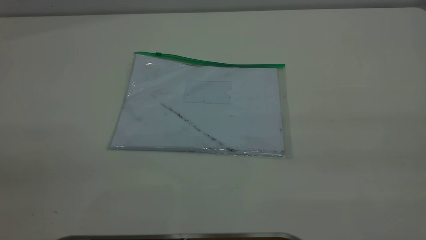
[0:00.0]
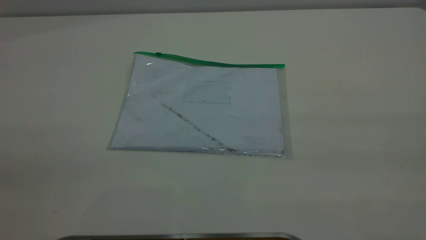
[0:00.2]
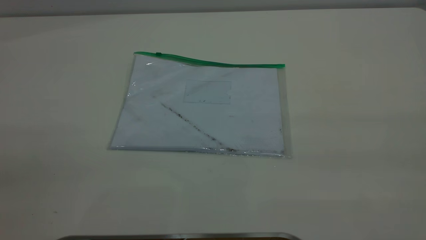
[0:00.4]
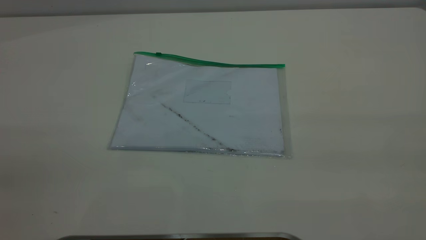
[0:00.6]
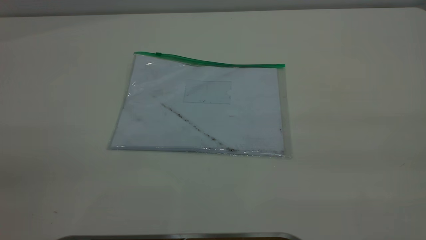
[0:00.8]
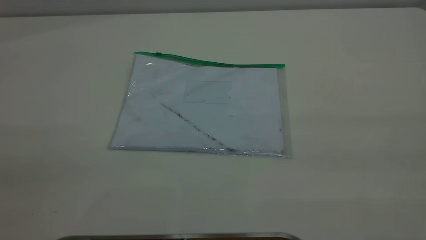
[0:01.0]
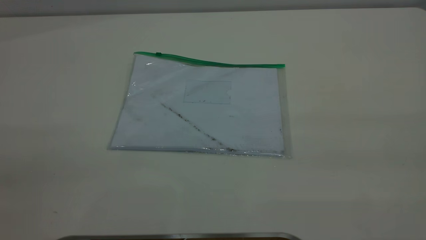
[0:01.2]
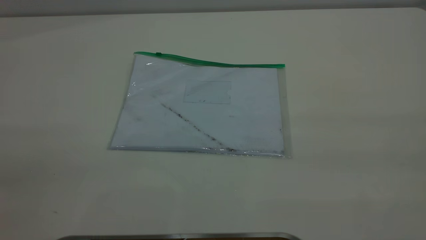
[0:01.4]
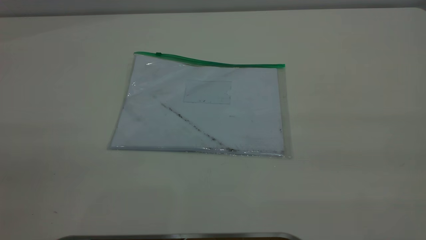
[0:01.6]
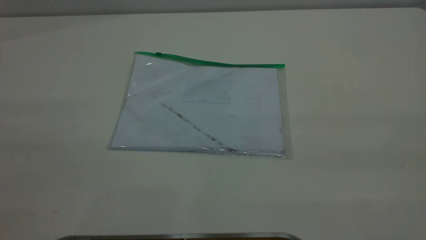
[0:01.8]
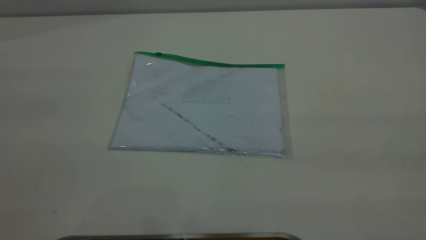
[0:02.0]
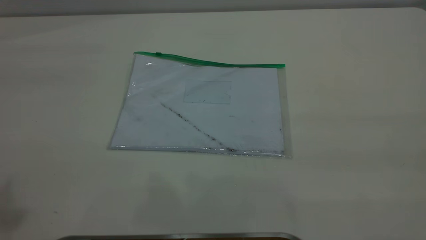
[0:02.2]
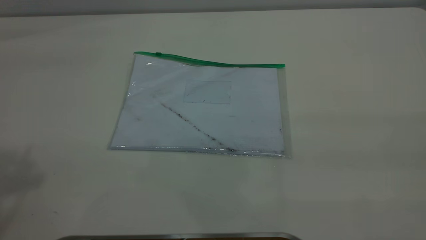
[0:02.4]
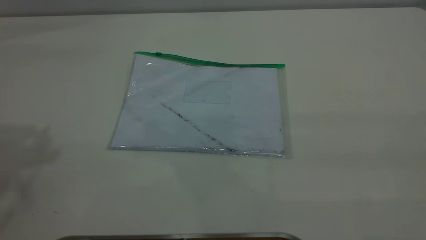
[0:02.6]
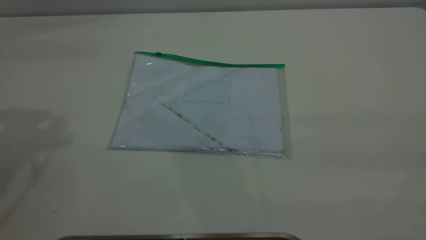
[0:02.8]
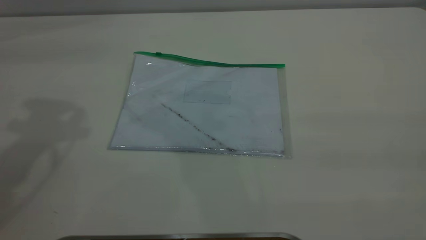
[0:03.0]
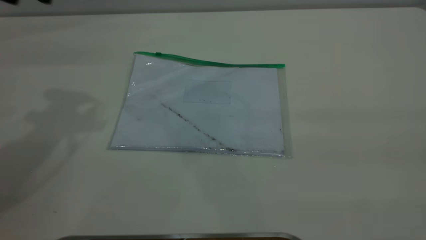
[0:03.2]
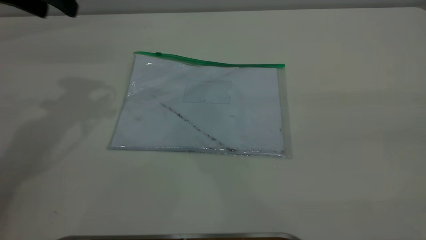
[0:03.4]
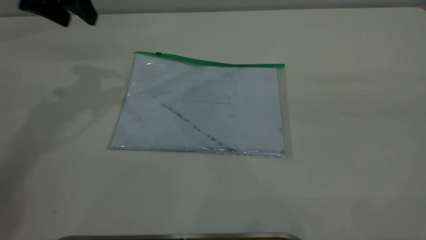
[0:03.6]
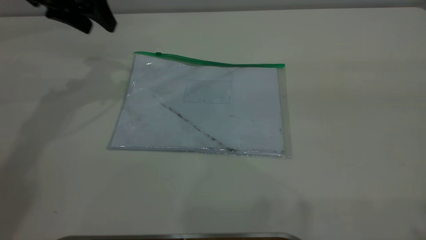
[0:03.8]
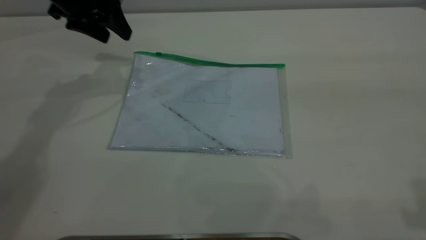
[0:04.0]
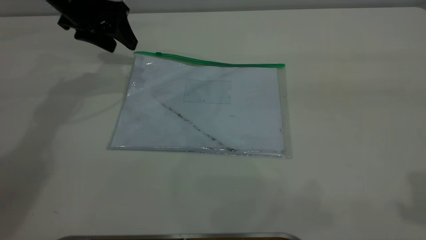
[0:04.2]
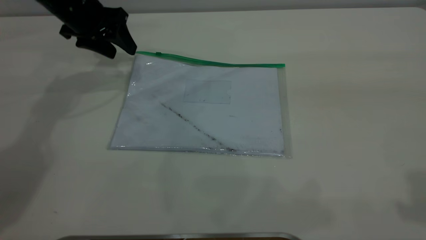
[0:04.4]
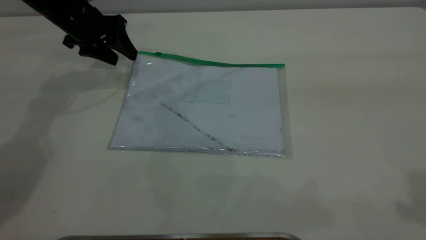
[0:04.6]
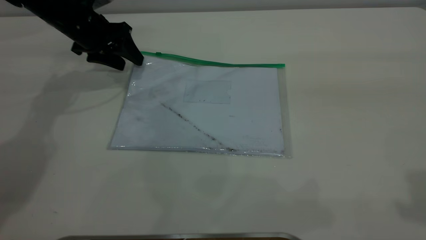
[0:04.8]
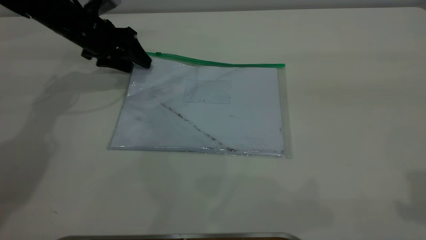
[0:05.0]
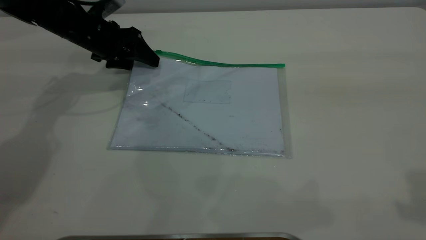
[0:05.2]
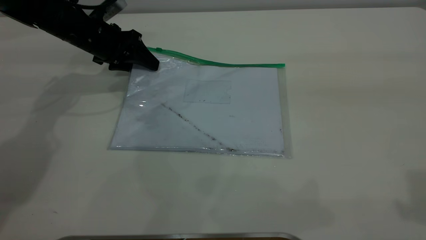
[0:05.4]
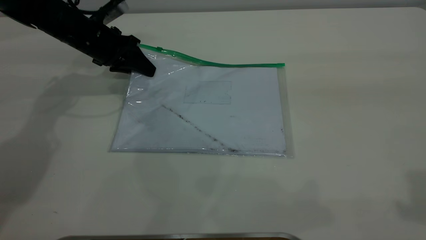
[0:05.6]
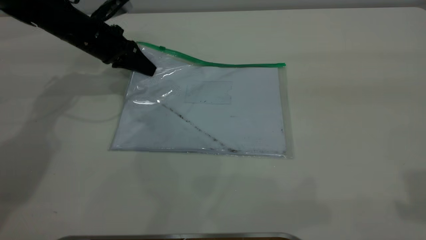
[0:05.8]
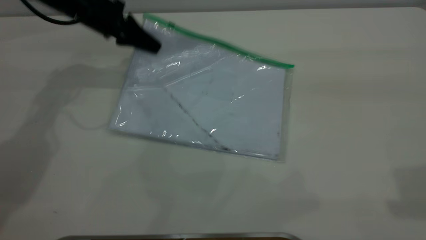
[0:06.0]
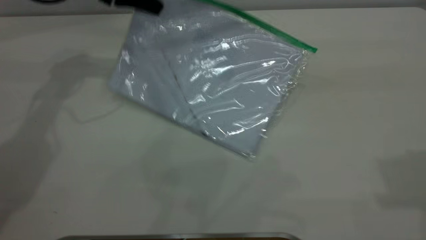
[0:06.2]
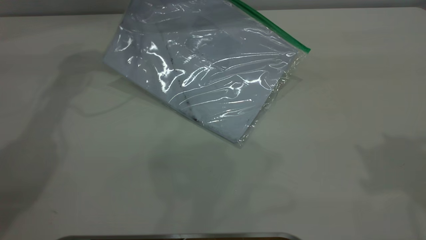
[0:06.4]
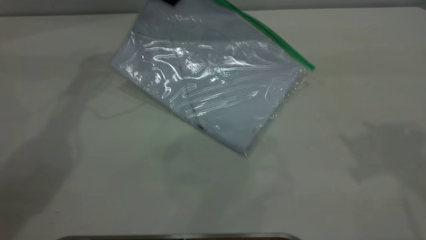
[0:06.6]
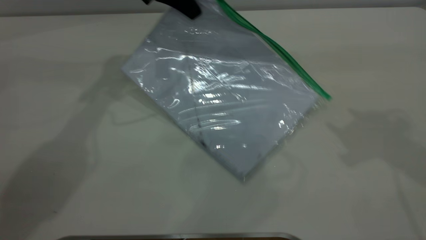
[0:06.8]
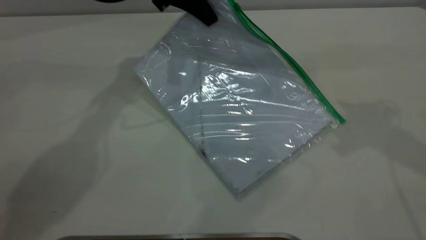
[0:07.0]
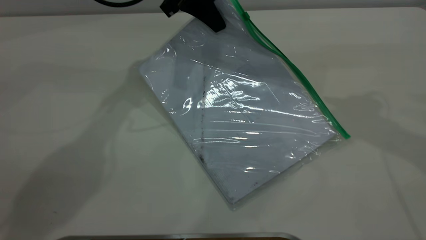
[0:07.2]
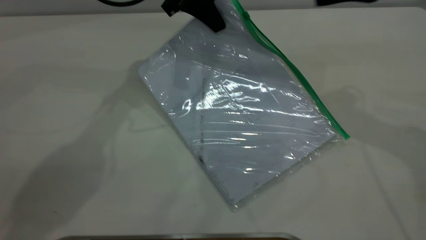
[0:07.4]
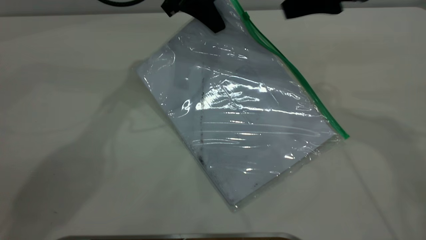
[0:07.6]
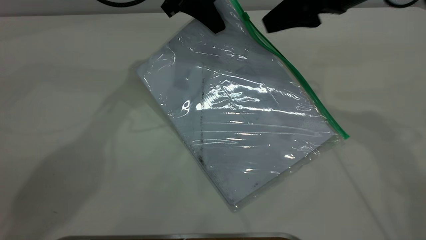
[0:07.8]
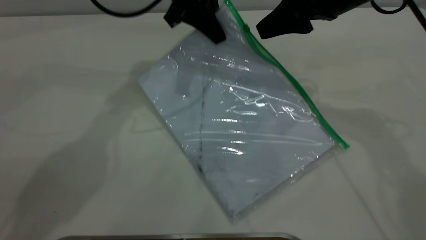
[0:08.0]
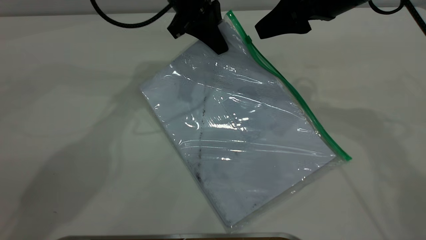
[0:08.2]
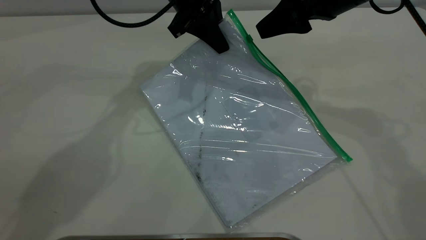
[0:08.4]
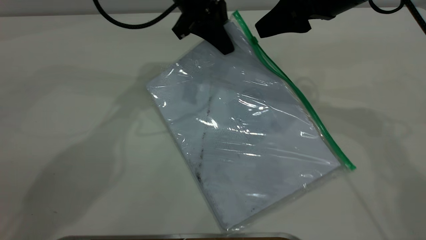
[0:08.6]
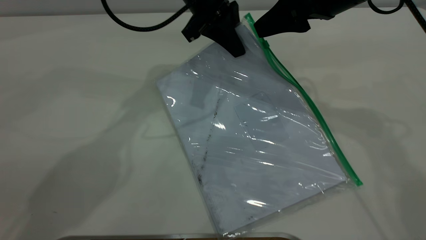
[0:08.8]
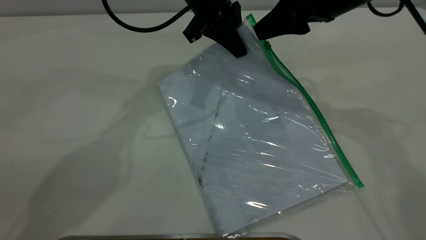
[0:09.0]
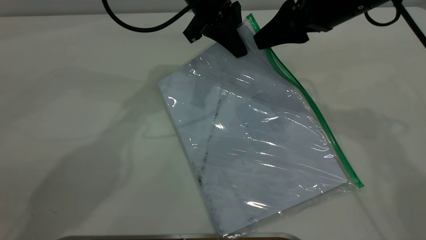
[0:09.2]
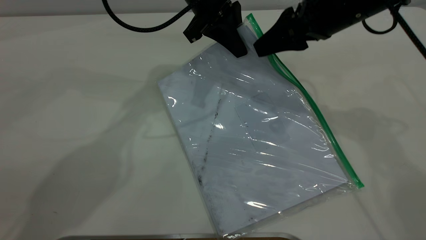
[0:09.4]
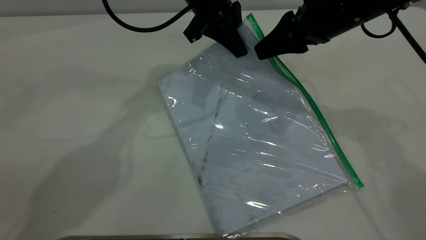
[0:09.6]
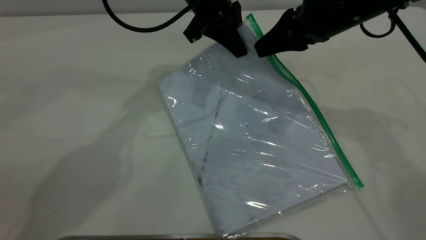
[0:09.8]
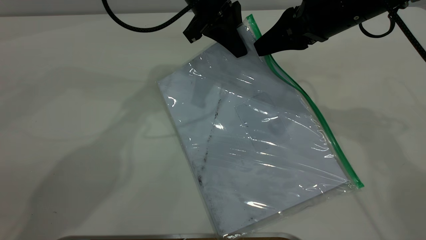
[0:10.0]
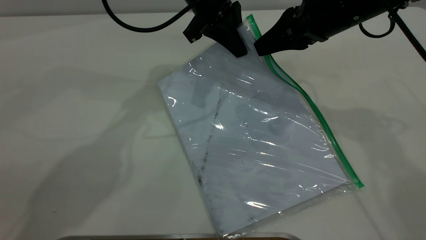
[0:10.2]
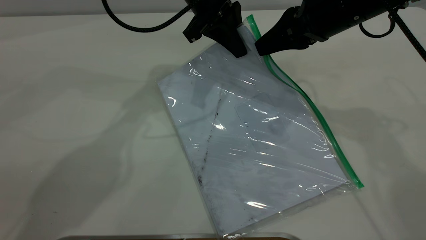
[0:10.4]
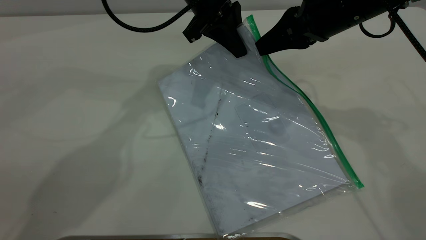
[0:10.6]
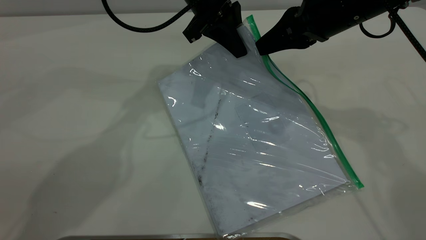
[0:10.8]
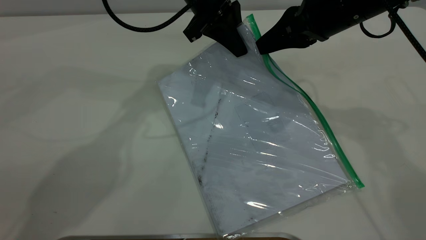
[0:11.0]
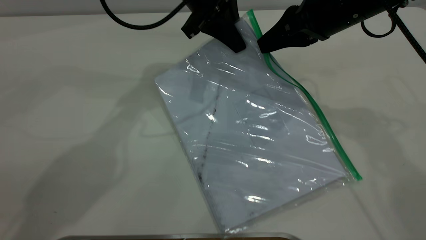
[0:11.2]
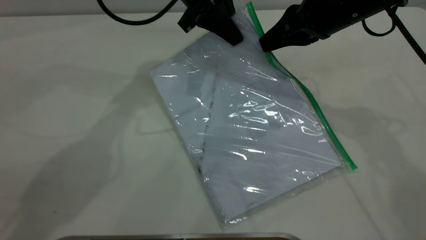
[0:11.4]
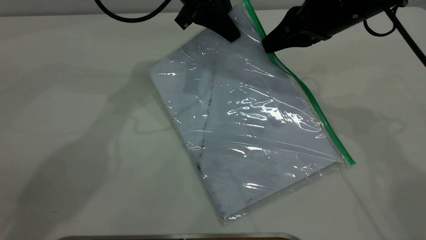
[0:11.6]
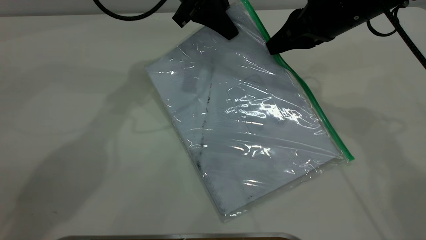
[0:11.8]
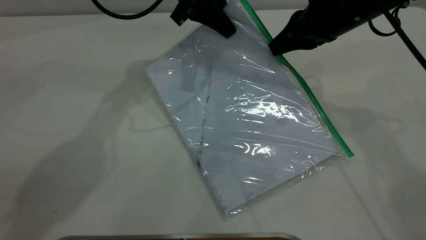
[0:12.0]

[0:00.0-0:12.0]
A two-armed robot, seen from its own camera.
Step, 0:00.0 to 0:05.8: Pick up the transparent plastic bag with the left gripper.
0:00.0 to 0:01.6: Both grippers stay put.
0:03.0 to 0:04.4: The left gripper moves downward and forward, roughly 25 cm.
0:04.4 to 0:06.0: The left gripper closes.
0:06.0 to 0:07.6: The left gripper moves to the right and upward, roughly 15 cm, while the right gripper travels forward, downward and to the left by approximately 25 cm.
0:07.6 to 0:09.0: The left gripper changes place by approximately 5 cm.
0:09.0 to 0:10.4: The right gripper closes.
0:10.4 to 0:12.0: The grippers make only small movements.

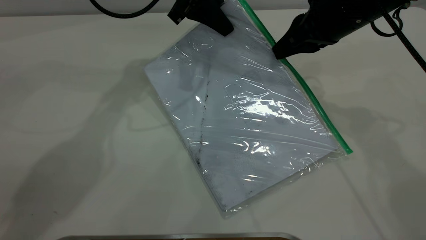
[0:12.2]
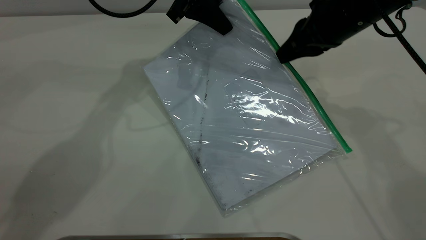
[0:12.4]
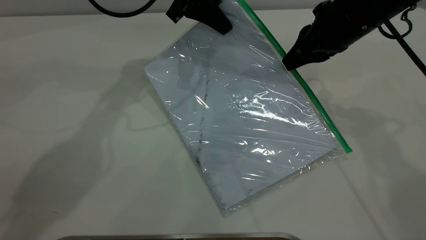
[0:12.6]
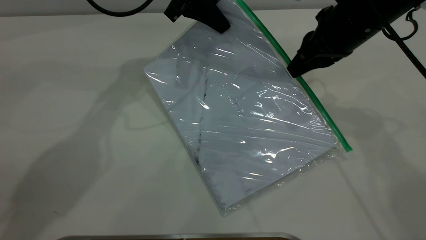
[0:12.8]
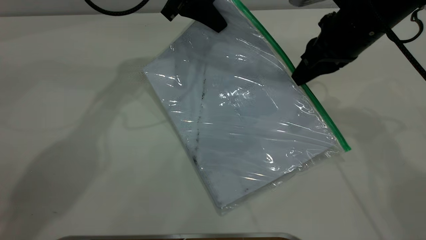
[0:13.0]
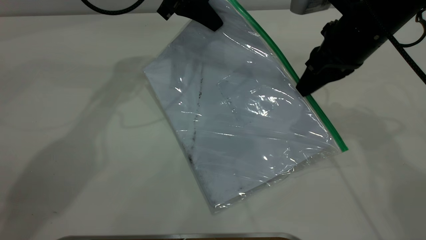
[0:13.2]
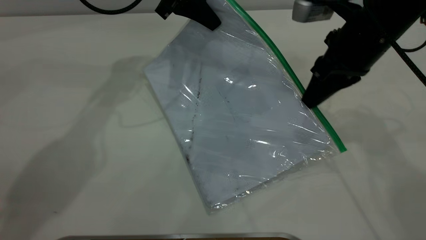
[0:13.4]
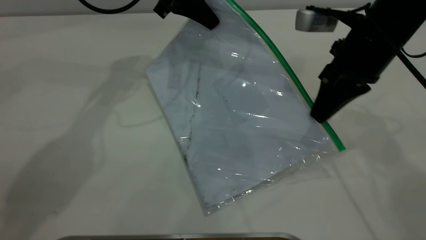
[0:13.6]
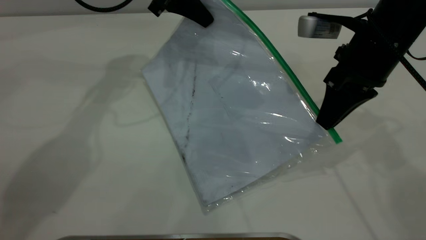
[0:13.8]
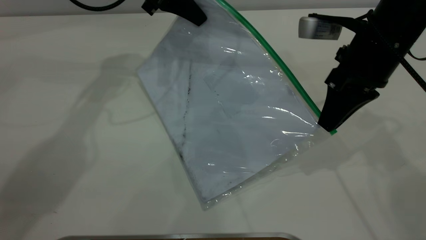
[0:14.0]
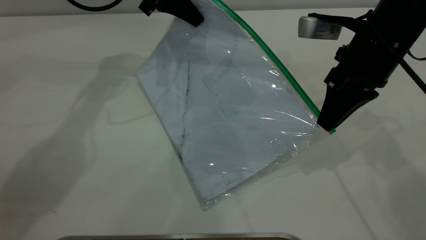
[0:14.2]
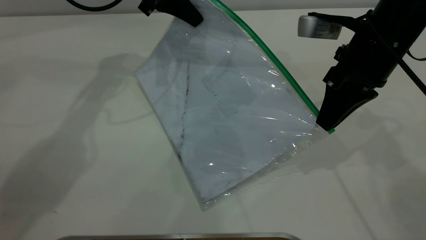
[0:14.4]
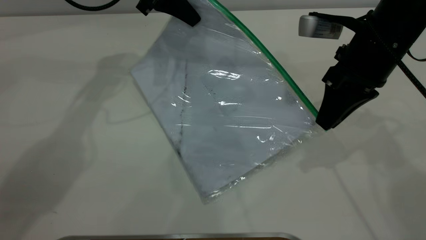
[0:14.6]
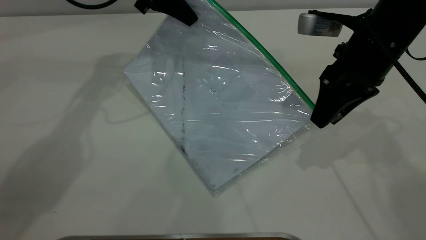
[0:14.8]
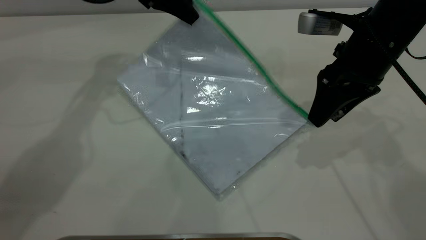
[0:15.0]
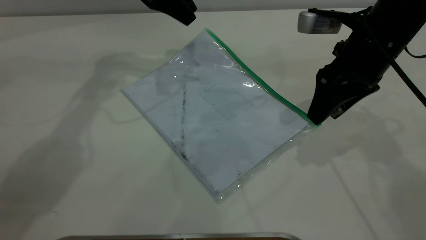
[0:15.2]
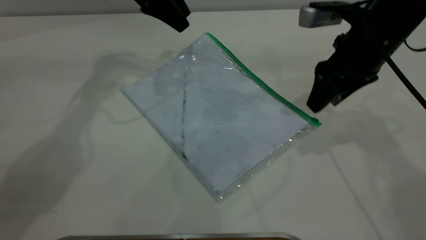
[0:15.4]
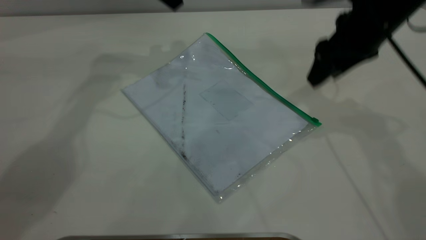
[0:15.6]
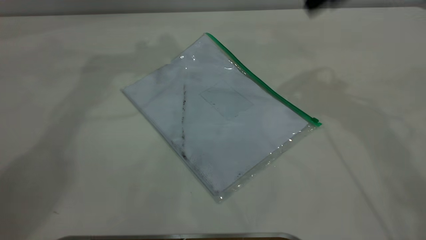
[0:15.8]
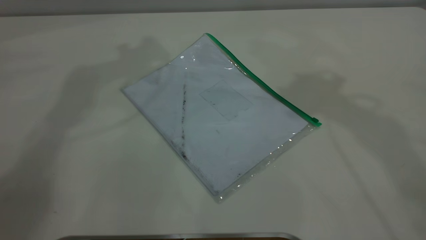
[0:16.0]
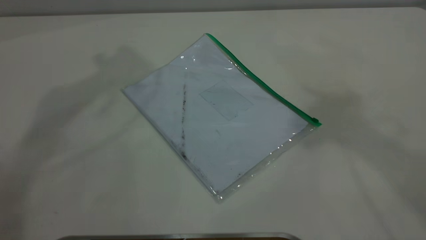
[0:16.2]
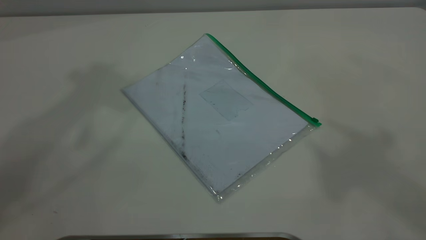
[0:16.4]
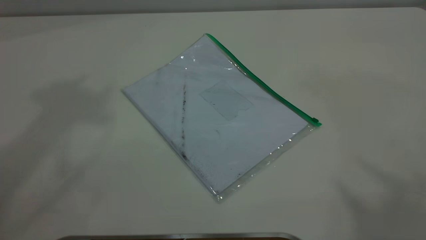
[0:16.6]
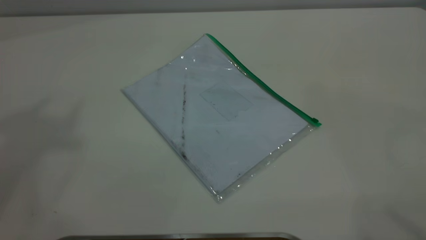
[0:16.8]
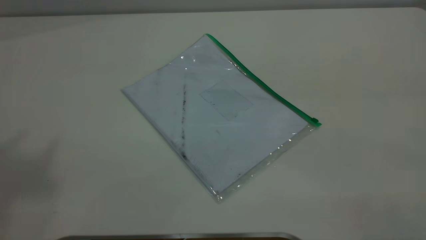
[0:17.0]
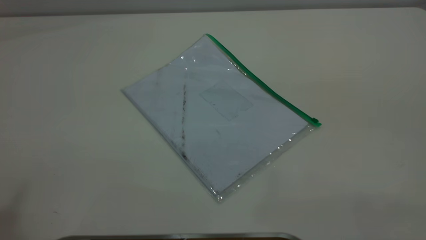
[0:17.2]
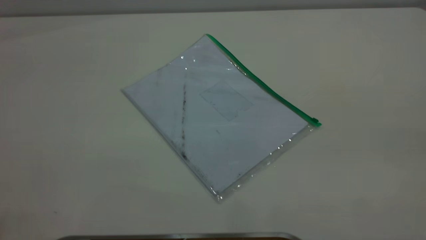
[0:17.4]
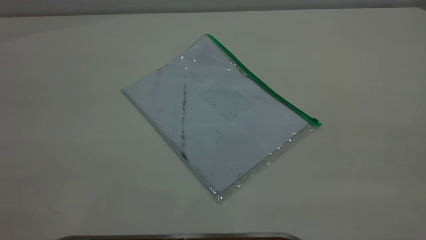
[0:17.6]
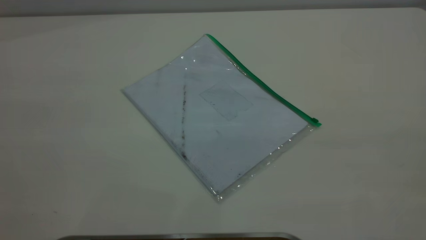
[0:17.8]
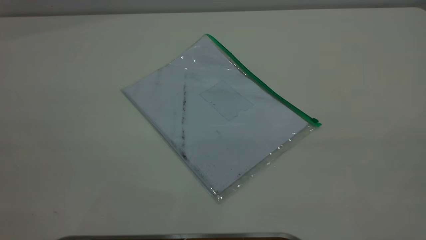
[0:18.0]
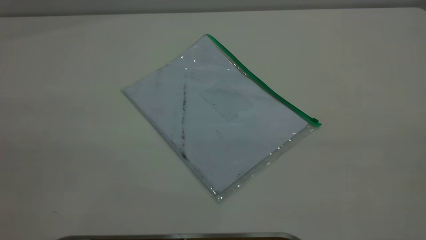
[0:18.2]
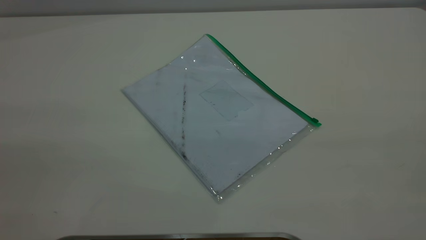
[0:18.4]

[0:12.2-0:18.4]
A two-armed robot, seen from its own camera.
Step, 0:12.2 to 0:14.8: Pulling up the zipper on the transparent plastic bag with the right gripper to close it.
Step, 0:15.0 to 0:15.4: Place the transparent plastic bag.
0:12.2 to 0:13.8: The right gripper shifts by roughly 5 cm.
0:13.8 to 0:15.4: The left gripper opens. The right gripper opens its fingers.
0:15.4 to 0:16.8: The two grippers go roughly 50 cm upward and backward.
